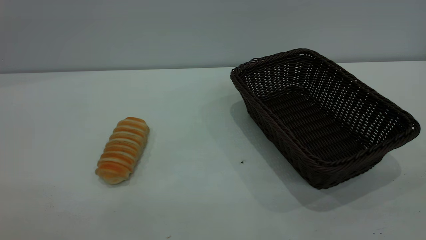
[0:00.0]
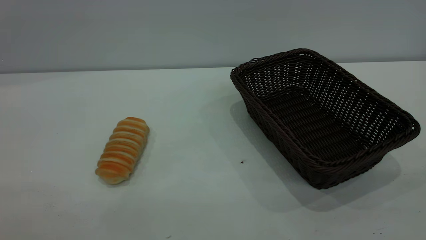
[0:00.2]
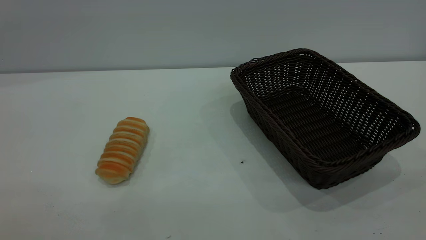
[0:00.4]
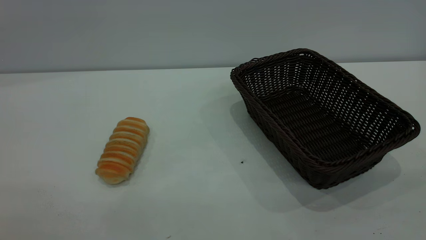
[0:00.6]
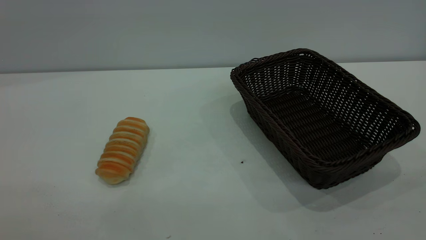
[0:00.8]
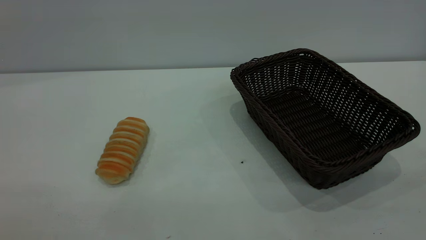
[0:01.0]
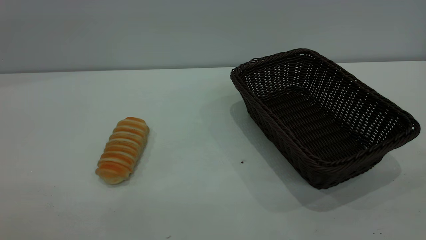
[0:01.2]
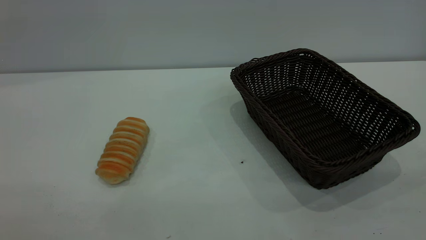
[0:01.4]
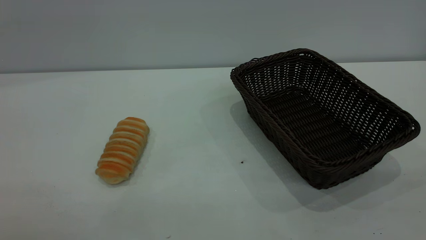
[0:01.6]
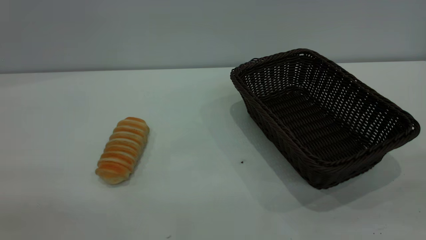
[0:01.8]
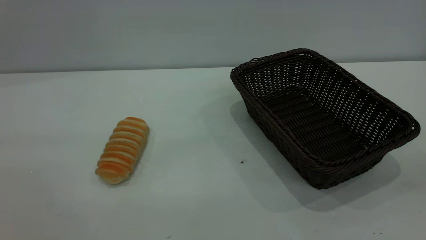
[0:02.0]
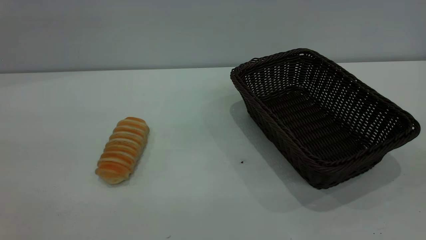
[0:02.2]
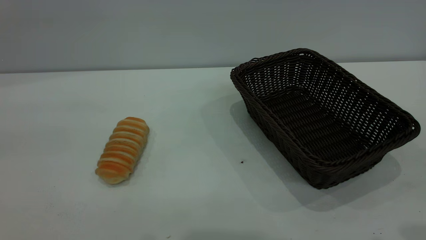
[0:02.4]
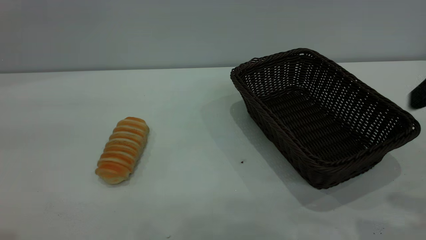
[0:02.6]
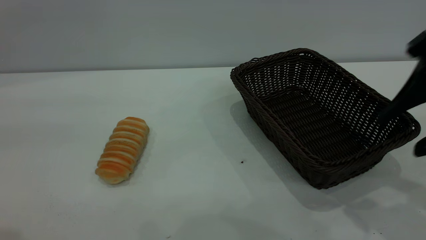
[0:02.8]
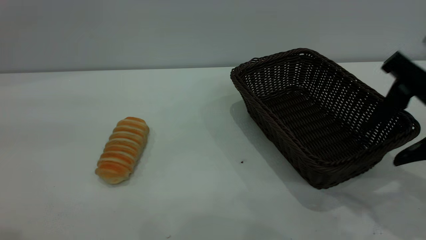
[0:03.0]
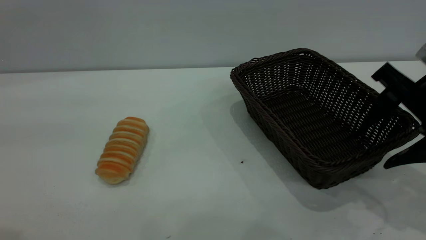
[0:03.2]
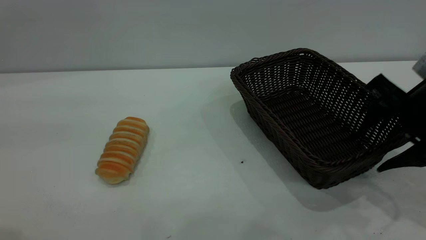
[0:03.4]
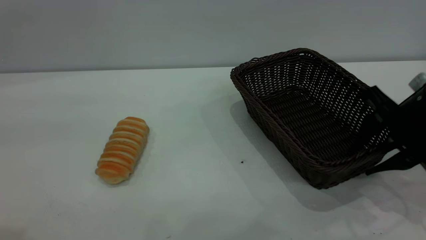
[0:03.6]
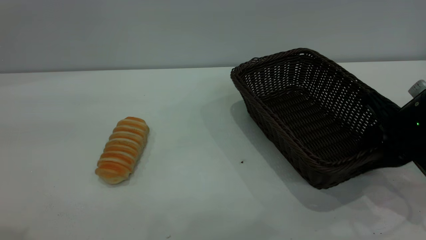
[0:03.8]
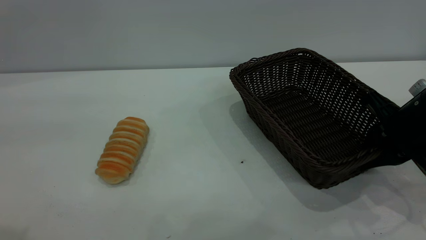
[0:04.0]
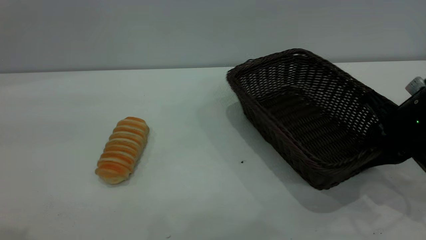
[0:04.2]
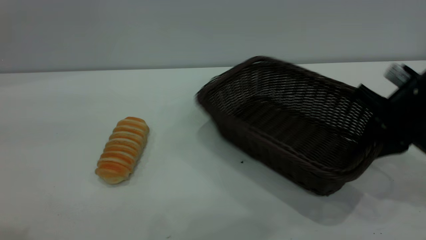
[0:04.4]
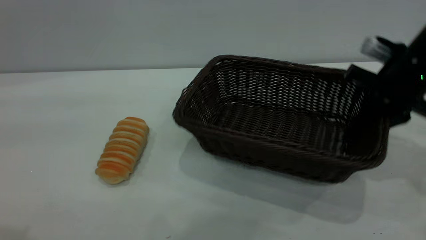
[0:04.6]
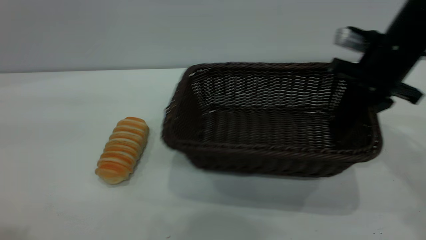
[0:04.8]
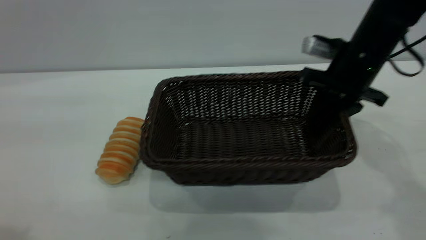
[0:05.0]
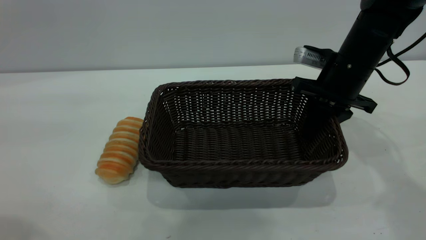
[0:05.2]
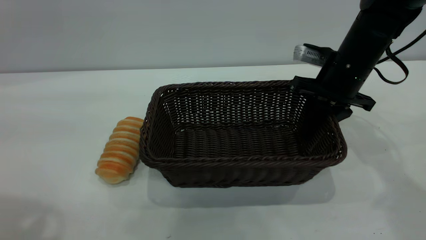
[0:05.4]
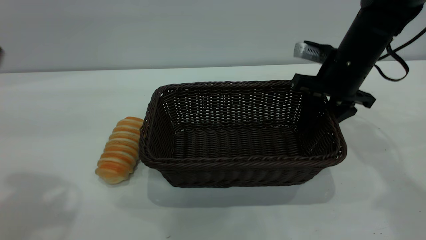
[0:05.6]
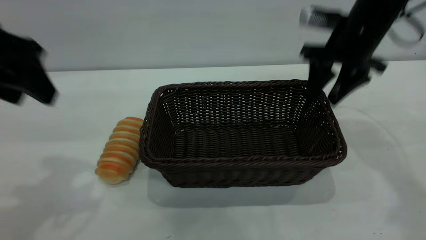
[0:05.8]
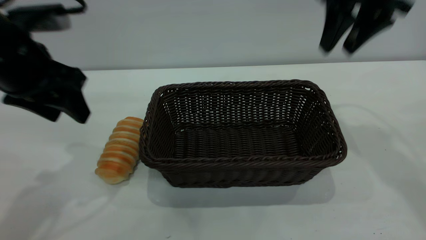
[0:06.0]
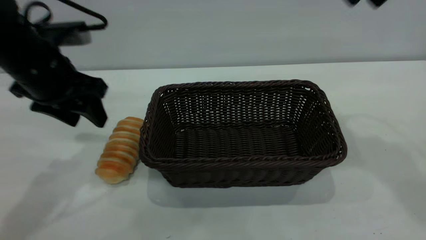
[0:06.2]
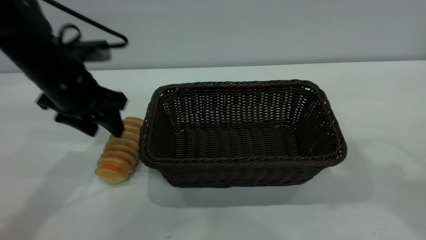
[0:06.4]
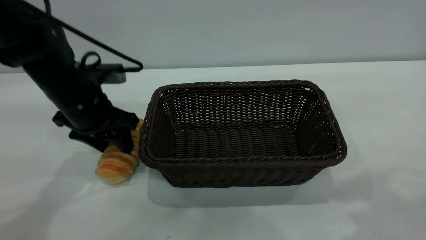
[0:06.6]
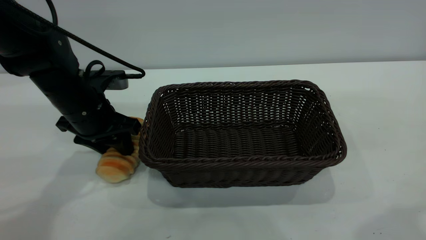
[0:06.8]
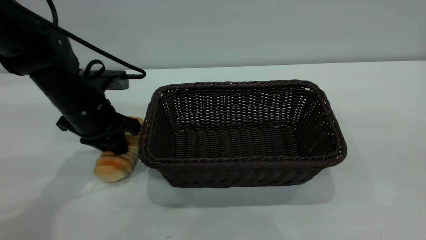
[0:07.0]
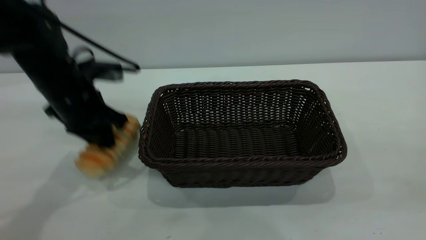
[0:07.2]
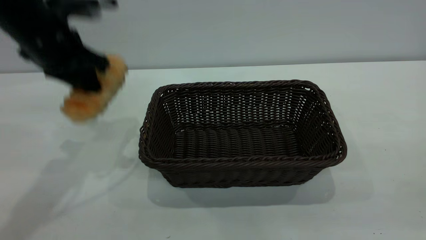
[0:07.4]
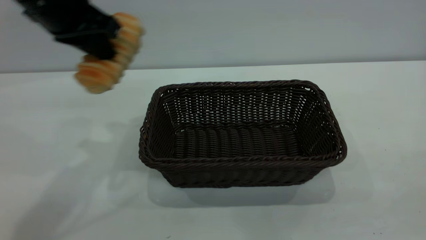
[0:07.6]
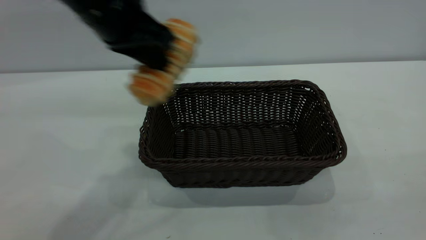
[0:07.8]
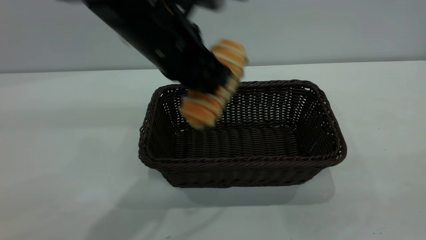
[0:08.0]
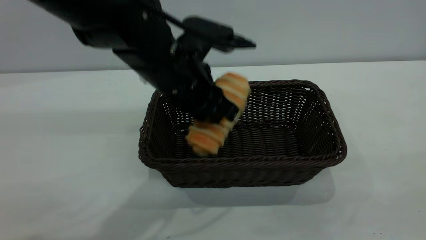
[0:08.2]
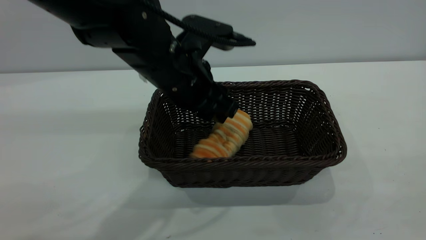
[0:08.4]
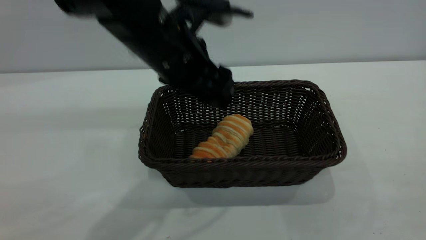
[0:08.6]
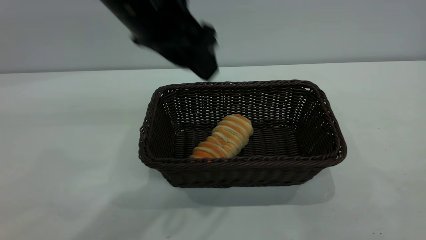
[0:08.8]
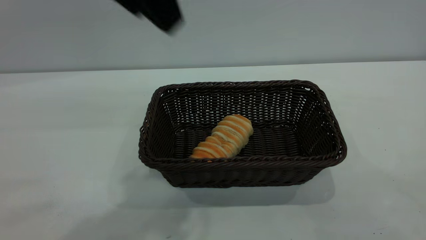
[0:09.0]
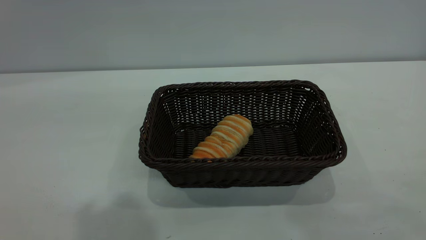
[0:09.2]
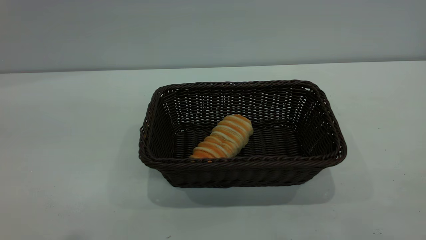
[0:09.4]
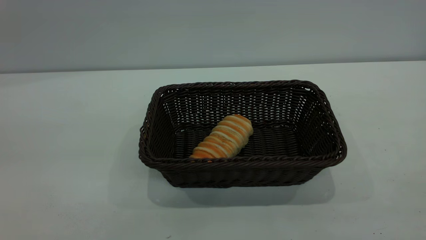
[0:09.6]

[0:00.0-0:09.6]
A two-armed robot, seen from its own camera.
Task of the whole recording: One hand grasps the black basket and places it in the middle of the table, while the other hand picks up the long bread and puts it into the black basket.
Step, 0.0 to 5.8 s: Move the basket to the center of view.
Step, 7.6 to 8.8 s: place the bread into the basket.
0.0 to 1.6 s: Both grippers stay about where they are.
1.6 to 3.2 s: The right gripper heads forward and downward, covering about 35 cm.
3.2 to 4.8 s: The right gripper travels forward by about 10 cm, and closes.
4.8 to 6.4 s: The right gripper is displaced upward and backward by some 25 cm, and opens up, while the left gripper moves downward and forward, some 30 cm.
6.4 to 8.0 s: The left gripper swings up and down, some 15 cm each way, with 2 reversals, and closes up. The right gripper moves backward, approximately 25 cm.
8.0 to 9.6 s: The left gripper moves backward, upward and to the left, some 35 cm, and opens its fingers.

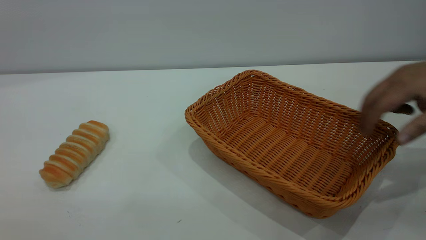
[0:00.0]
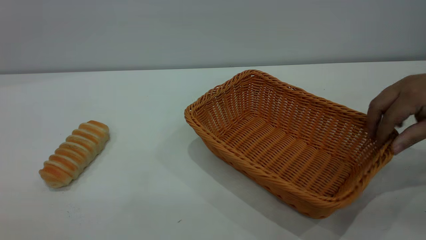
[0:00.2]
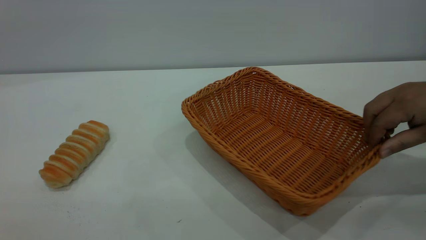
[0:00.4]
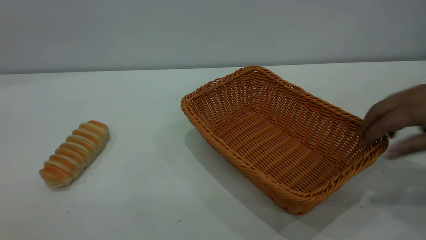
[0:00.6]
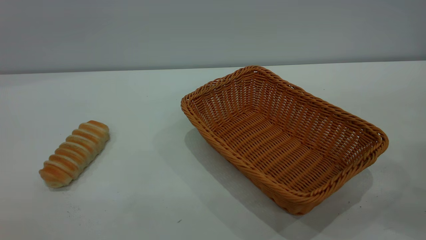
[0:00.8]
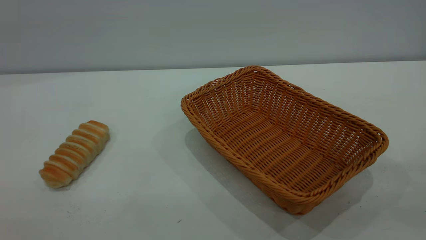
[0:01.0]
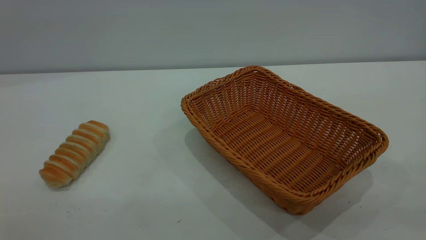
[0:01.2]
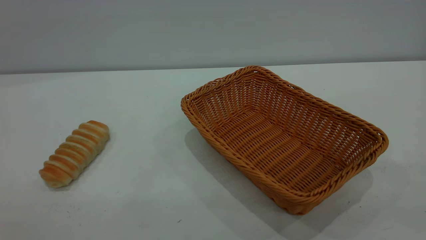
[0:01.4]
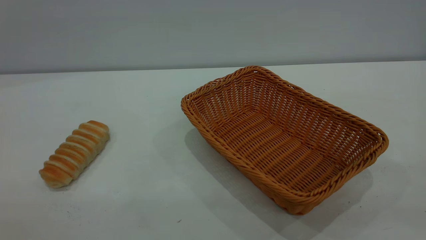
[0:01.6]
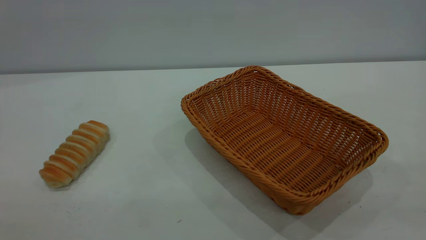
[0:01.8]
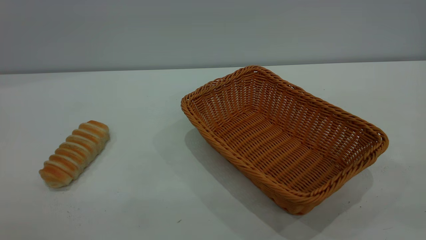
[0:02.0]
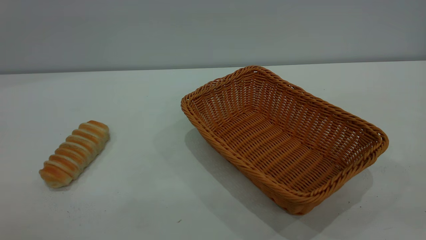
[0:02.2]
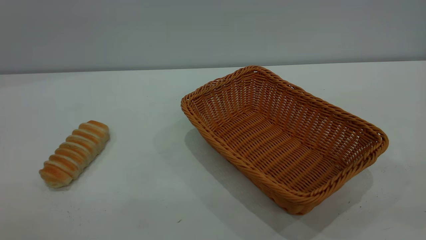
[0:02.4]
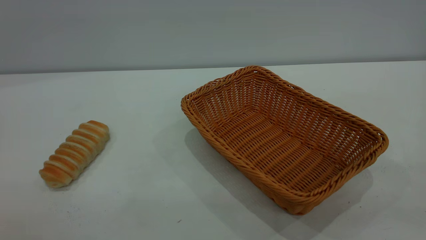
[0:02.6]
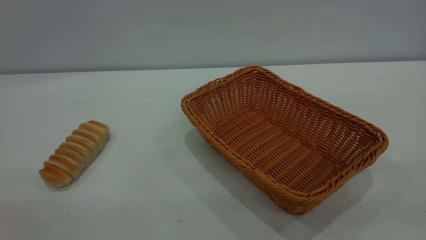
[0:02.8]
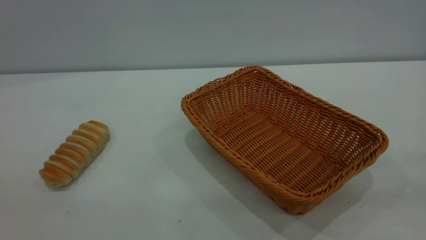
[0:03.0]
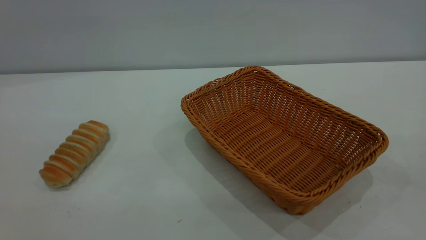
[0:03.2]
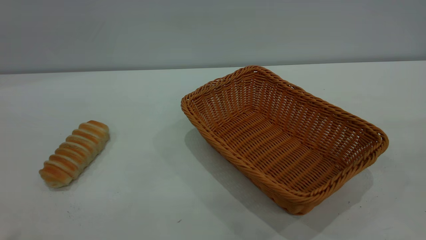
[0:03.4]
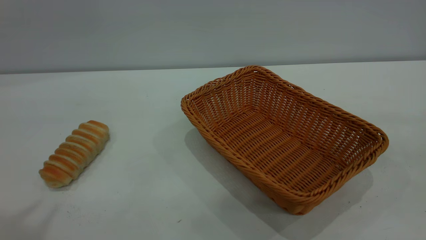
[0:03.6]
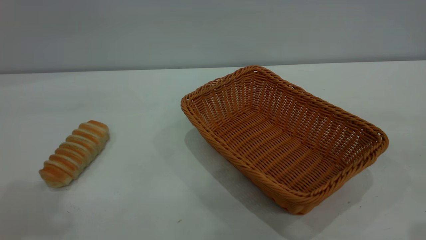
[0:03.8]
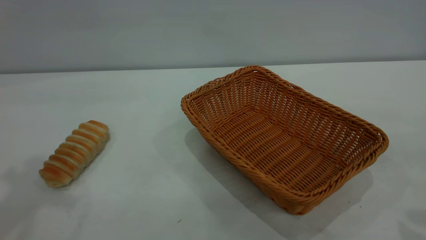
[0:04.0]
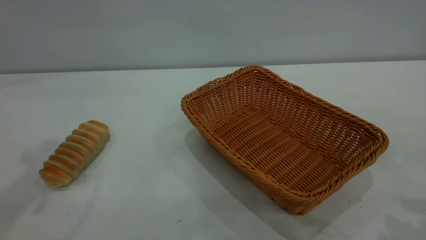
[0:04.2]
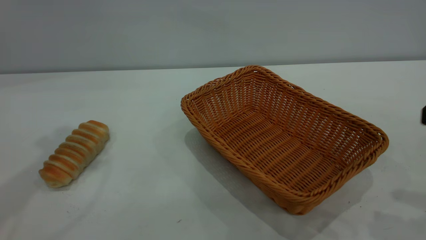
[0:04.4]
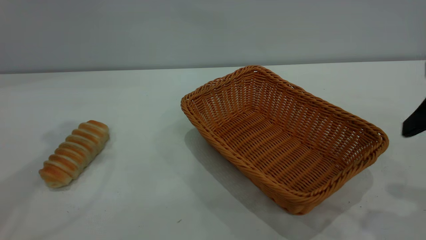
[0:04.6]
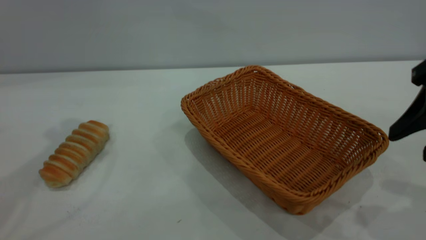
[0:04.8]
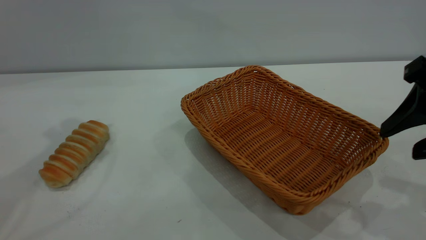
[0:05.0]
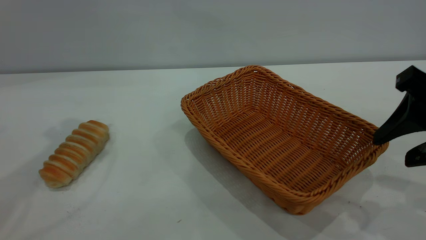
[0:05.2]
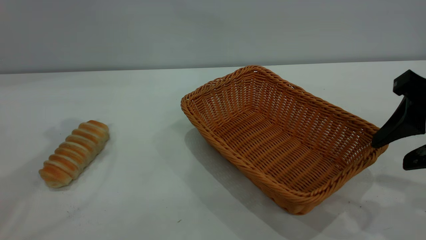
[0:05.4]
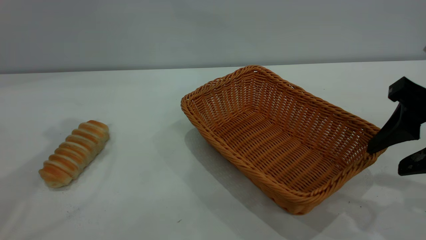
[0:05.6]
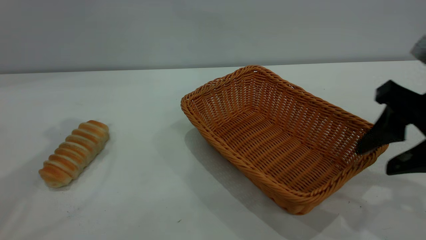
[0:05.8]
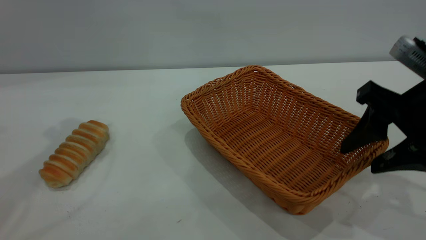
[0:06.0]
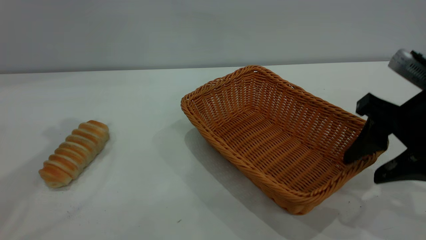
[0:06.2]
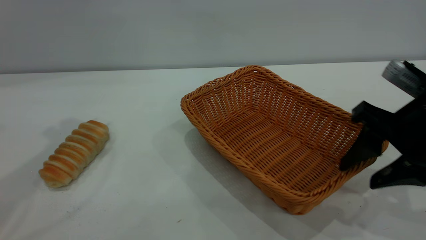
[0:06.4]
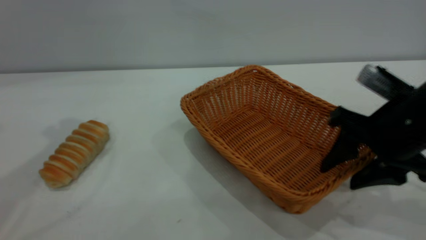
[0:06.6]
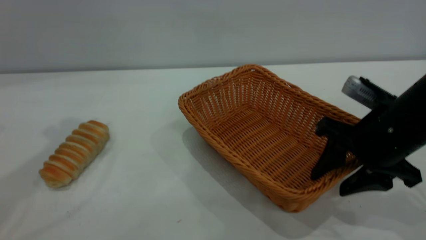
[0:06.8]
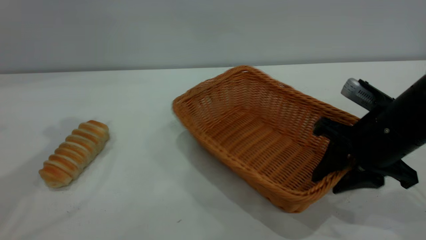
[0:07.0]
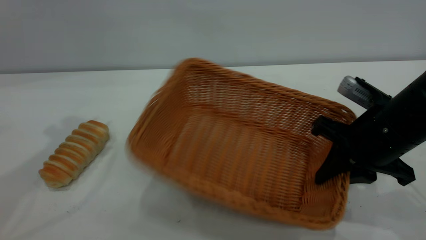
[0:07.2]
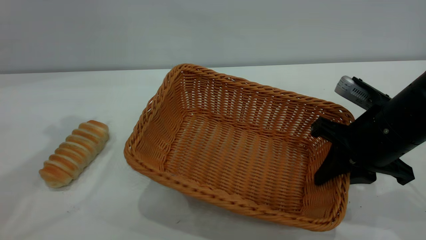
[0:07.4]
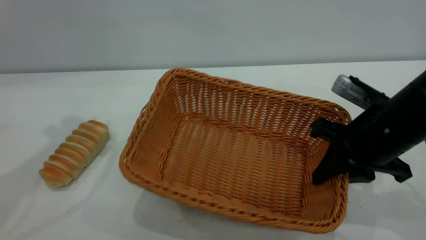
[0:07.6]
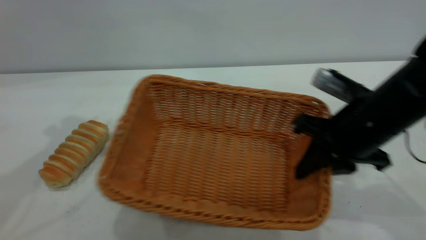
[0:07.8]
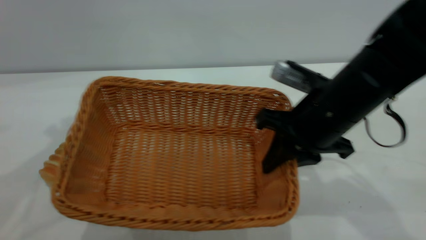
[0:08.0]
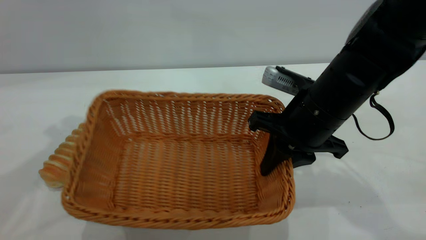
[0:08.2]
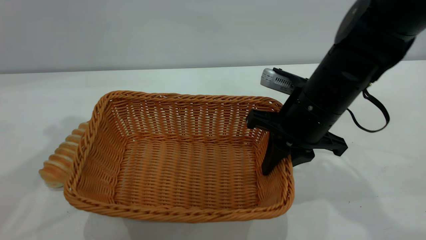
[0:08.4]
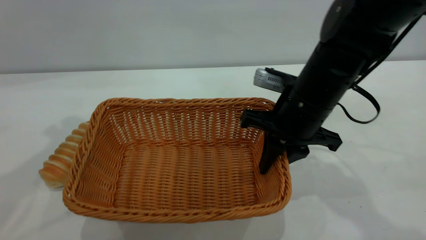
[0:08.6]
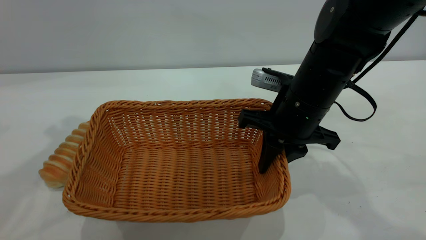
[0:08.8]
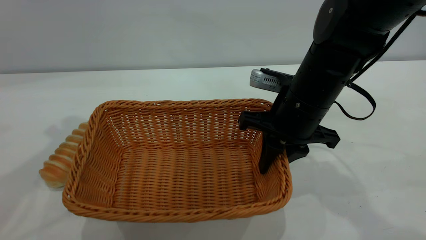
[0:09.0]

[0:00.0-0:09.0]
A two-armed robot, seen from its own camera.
Task of the whole recording: One hand grasps the yellow basket and places it in the middle of the table, while the other hand picks up the long bread and puts it into the yellow basket.
0.0 to 1.6 s: Both grippers stay about where they are.
4.4 to 6.0 s: The right gripper moves downward, approximately 10 cm.
6.0 to 7.6 s: The right gripper is displaced downward by some 5 cm, and closes up.
7.6 to 9.0 s: The right gripper goes roughly 10 cm to the left and forward.
